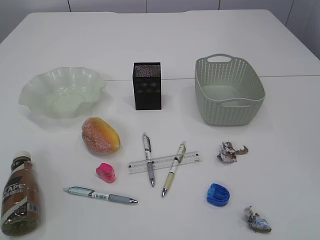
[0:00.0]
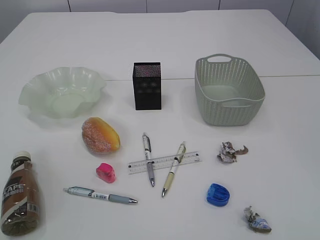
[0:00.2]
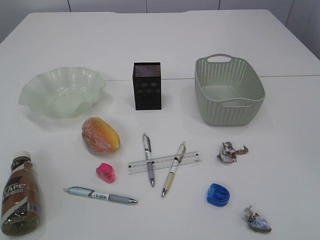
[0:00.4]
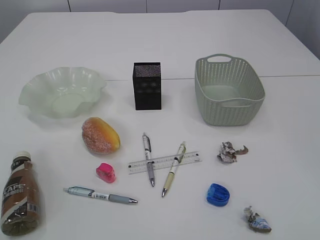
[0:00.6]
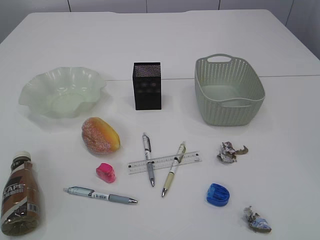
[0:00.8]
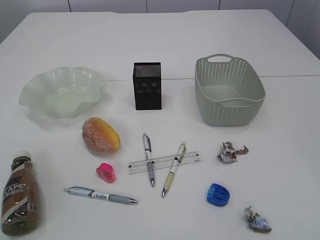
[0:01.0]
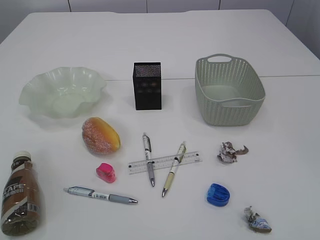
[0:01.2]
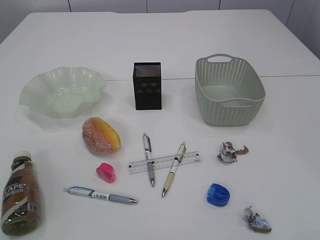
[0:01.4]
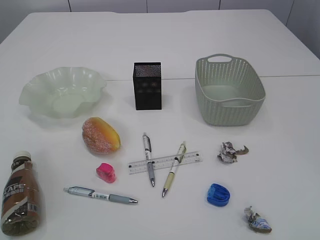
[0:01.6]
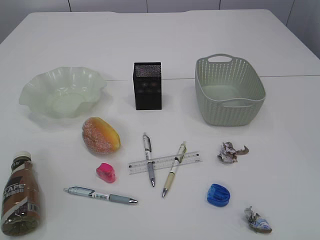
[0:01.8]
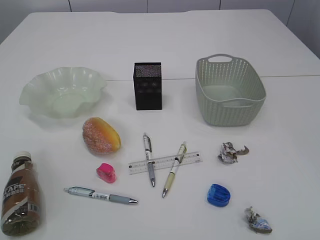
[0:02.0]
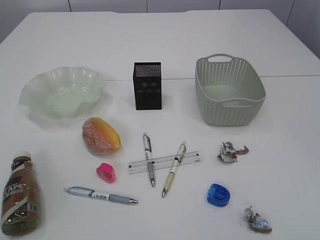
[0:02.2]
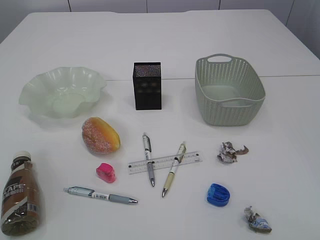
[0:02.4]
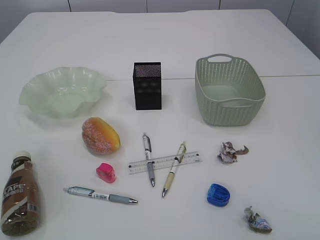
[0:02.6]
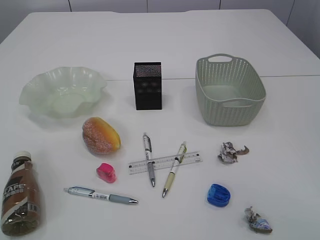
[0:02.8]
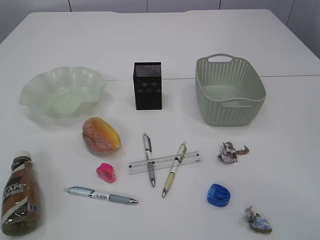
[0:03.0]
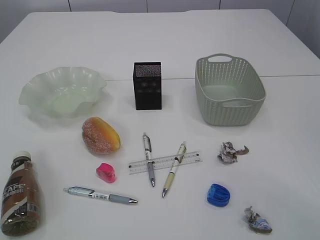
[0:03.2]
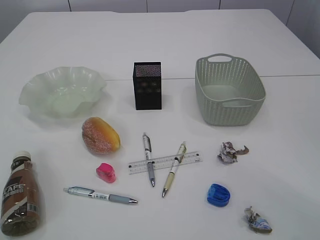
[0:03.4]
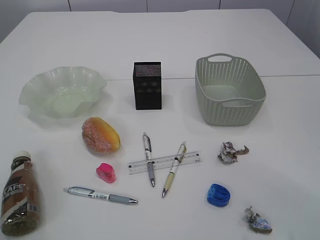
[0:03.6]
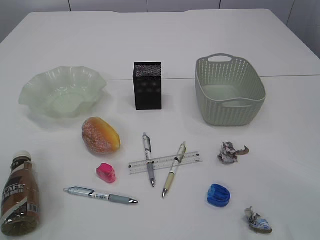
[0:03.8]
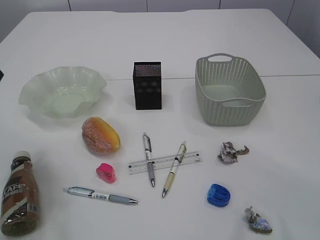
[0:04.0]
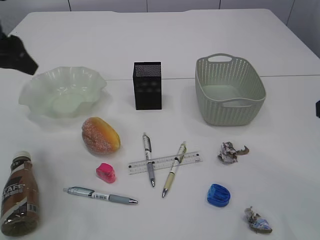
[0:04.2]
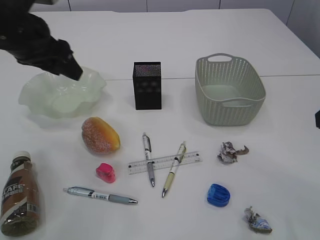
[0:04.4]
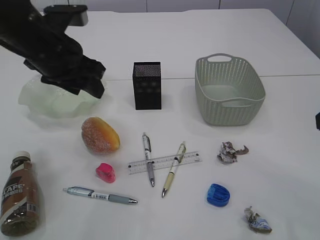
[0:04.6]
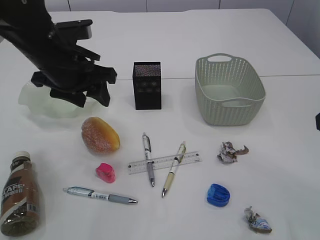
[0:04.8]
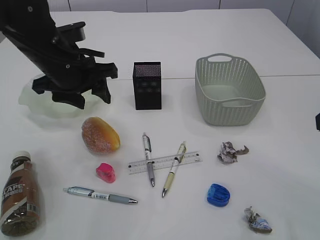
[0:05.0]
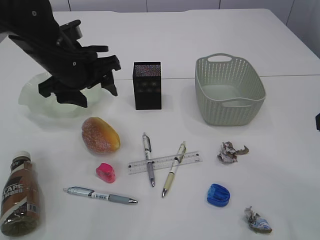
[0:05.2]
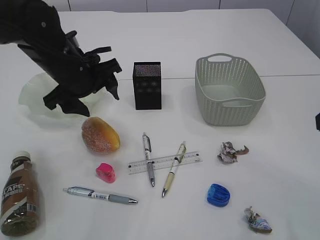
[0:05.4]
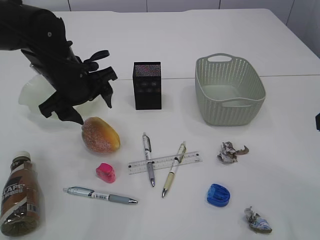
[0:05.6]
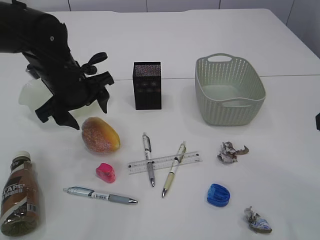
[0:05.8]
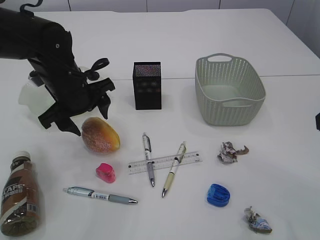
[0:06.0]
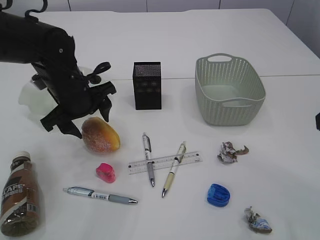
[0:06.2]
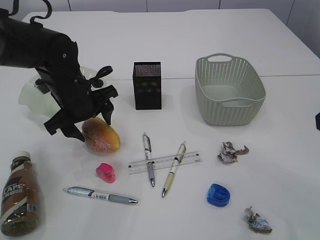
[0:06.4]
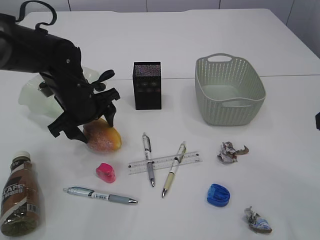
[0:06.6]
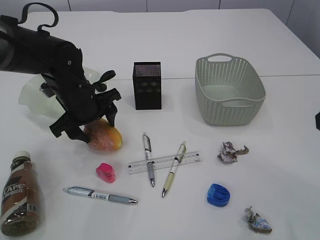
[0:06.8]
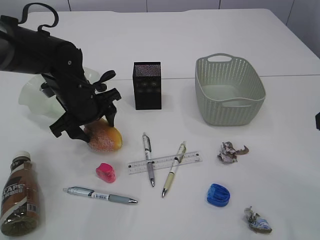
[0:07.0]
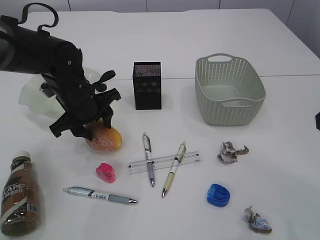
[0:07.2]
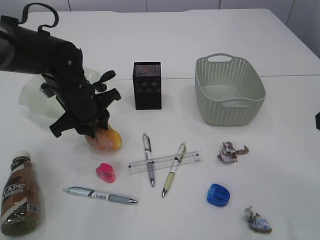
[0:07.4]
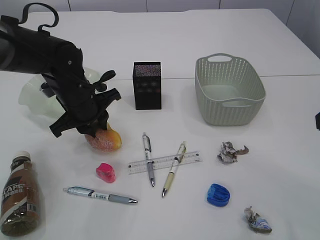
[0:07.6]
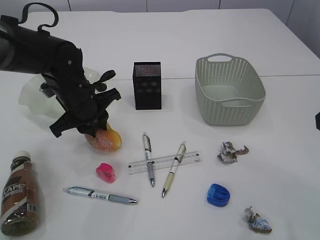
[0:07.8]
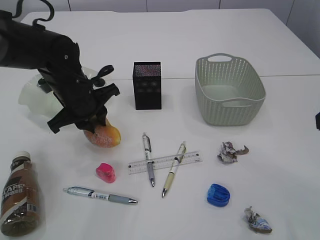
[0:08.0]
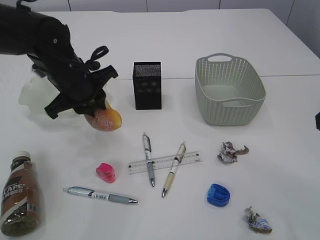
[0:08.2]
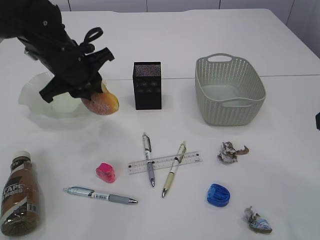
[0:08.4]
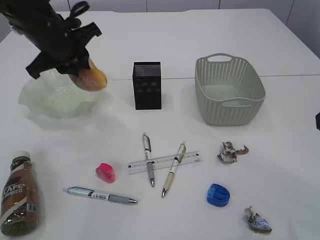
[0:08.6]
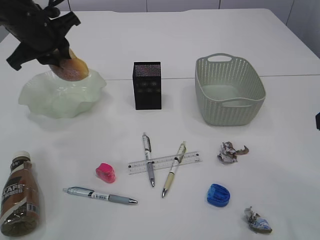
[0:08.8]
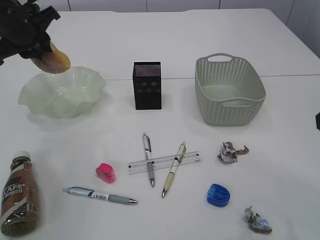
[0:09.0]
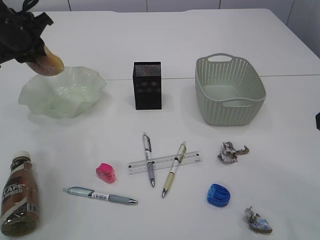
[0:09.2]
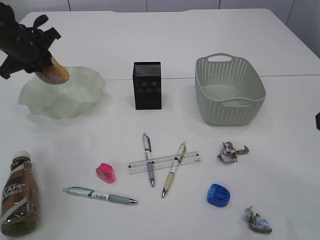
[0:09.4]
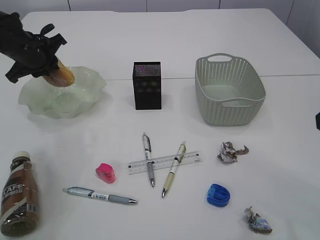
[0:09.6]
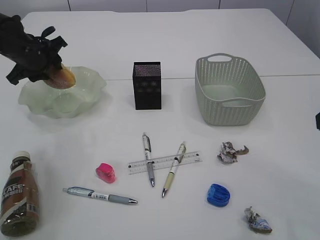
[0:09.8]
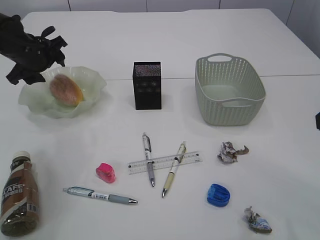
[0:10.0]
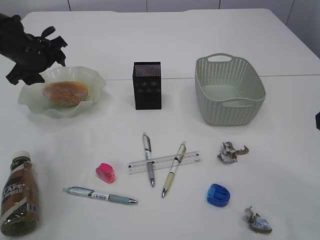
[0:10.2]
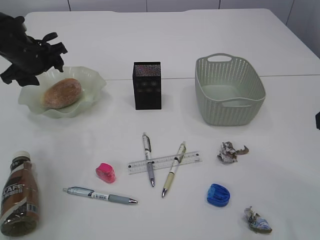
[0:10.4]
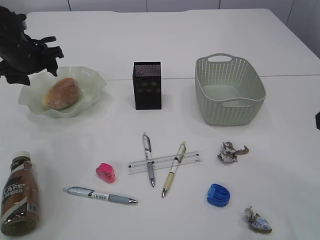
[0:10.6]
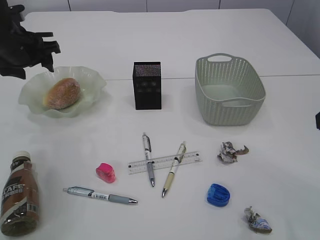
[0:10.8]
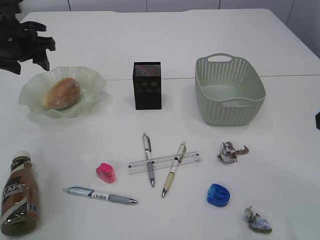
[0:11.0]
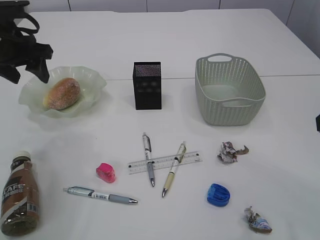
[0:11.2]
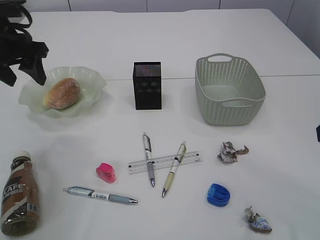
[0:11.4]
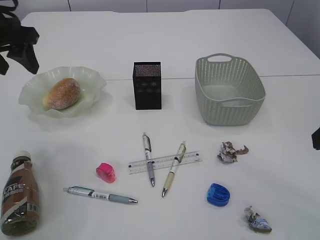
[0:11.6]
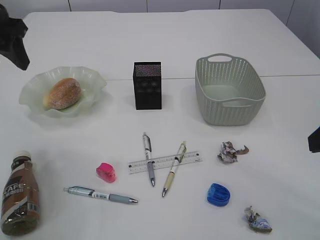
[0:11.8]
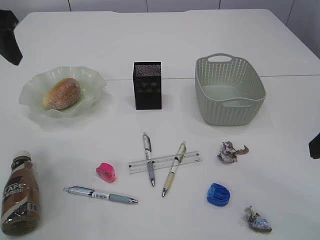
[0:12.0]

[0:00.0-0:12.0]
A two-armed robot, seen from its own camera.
Step, 0:08.6 to 0:10.6: place the bread in the plate.
0:03.0 to 0:04.4: The left gripper heads forward, covering some 30 cm.
0:04.4 to 0:06.0: The left gripper moves downward, about 10 cm.
0:06.0 to 0:07.6: The left gripper closes up.
0:07.6 to 0:09.0: The left gripper goes about 15 cm upward, to the left and forward.
0:09.0 to 0:10.4: The left gripper is displaced downward by roughly 10 cm, and opens its fingers.
0:10.4 to 0:12.0: The left gripper is displaced upward and backward by roughly 20 cm.

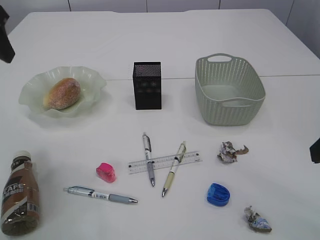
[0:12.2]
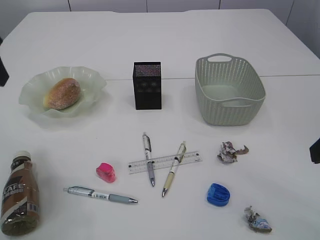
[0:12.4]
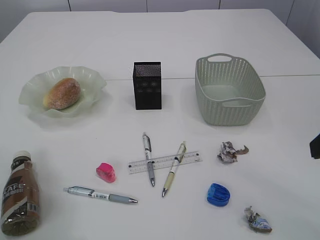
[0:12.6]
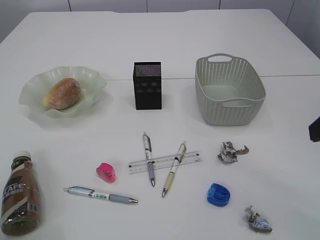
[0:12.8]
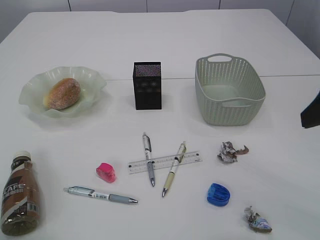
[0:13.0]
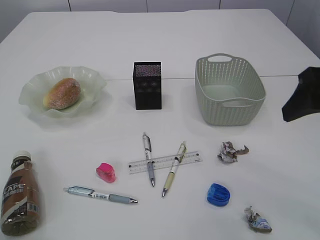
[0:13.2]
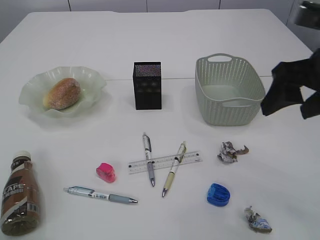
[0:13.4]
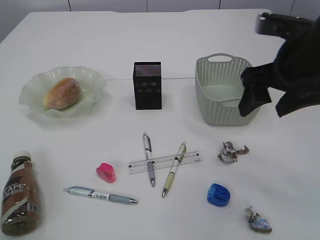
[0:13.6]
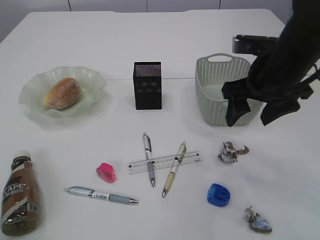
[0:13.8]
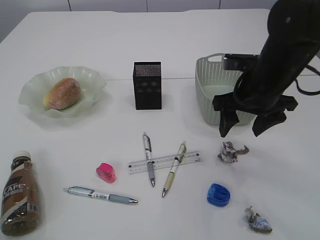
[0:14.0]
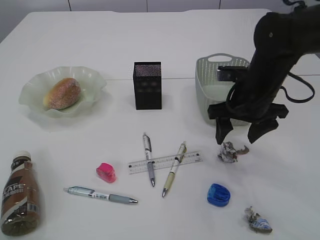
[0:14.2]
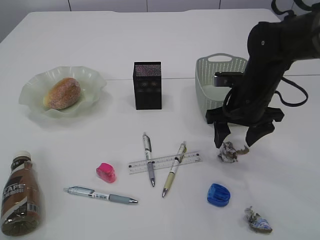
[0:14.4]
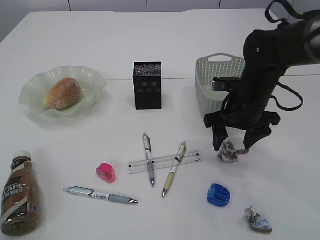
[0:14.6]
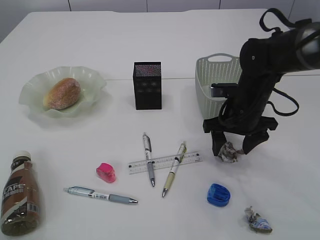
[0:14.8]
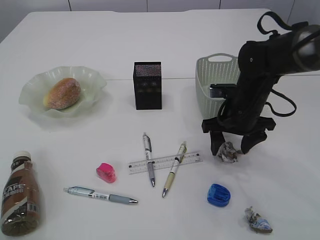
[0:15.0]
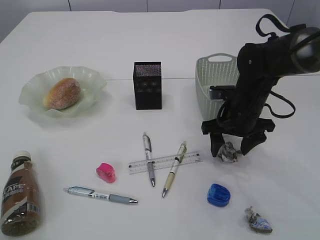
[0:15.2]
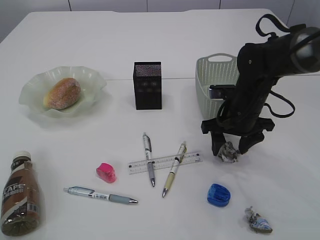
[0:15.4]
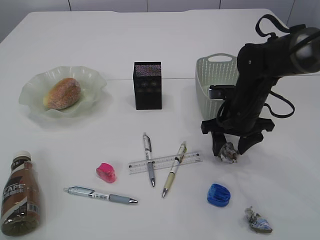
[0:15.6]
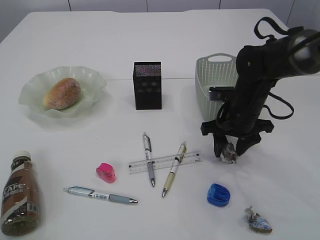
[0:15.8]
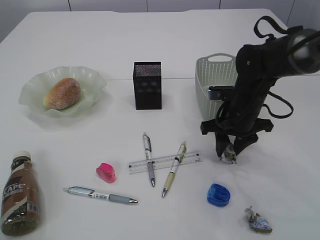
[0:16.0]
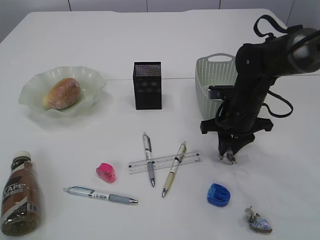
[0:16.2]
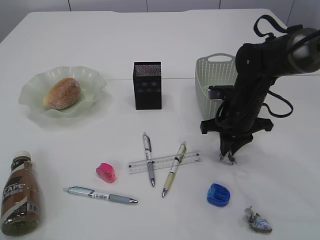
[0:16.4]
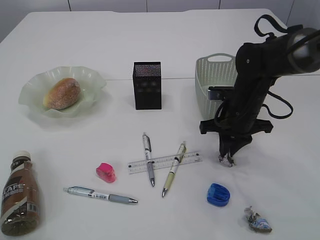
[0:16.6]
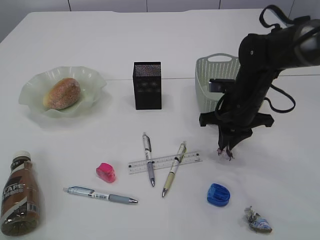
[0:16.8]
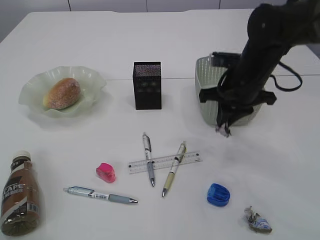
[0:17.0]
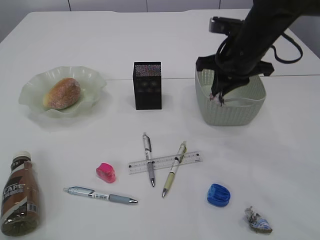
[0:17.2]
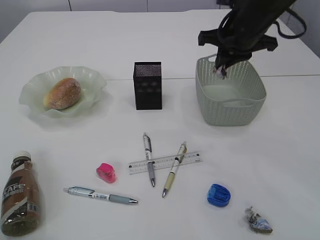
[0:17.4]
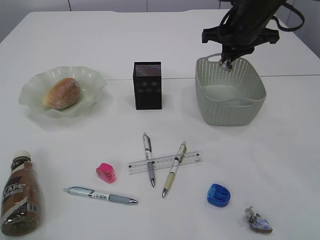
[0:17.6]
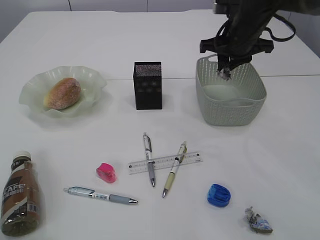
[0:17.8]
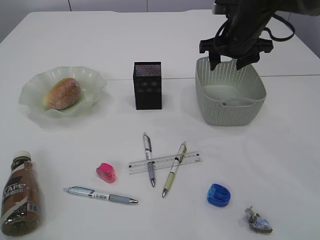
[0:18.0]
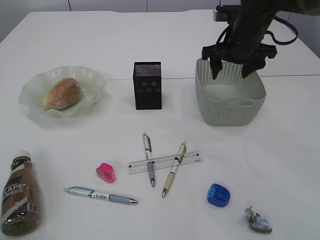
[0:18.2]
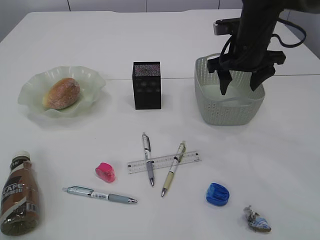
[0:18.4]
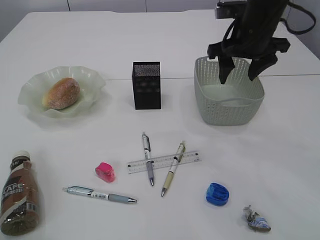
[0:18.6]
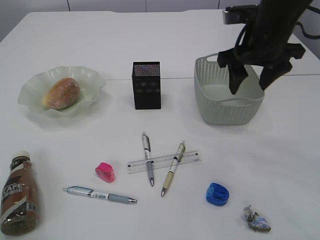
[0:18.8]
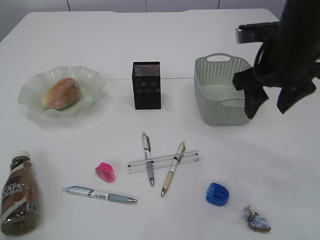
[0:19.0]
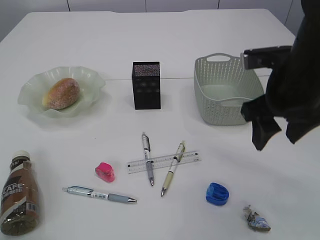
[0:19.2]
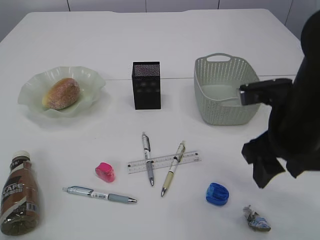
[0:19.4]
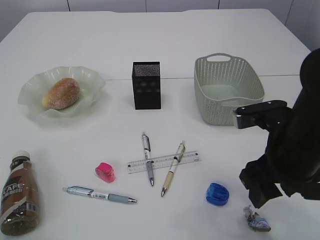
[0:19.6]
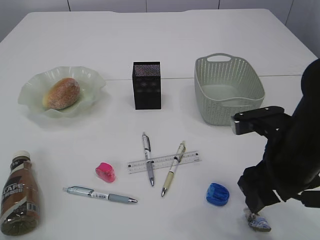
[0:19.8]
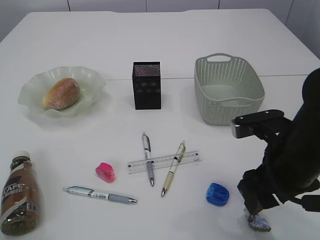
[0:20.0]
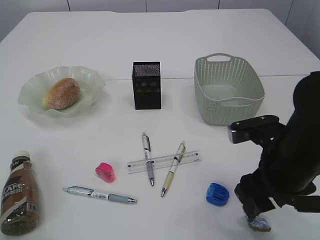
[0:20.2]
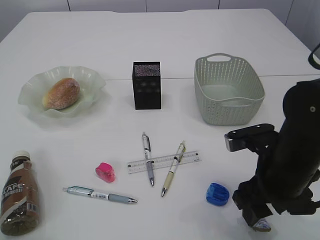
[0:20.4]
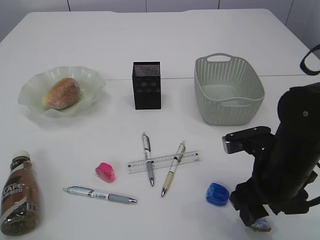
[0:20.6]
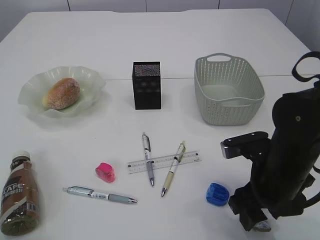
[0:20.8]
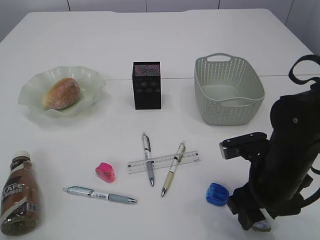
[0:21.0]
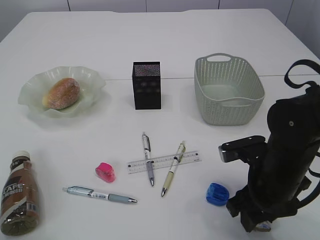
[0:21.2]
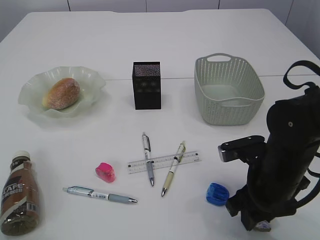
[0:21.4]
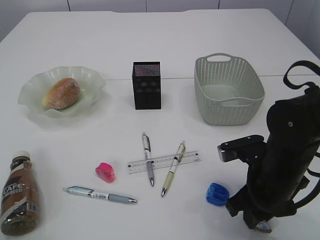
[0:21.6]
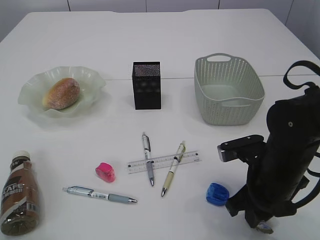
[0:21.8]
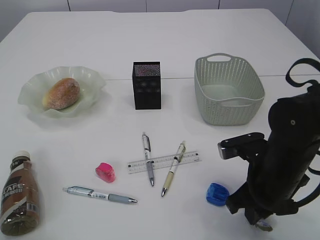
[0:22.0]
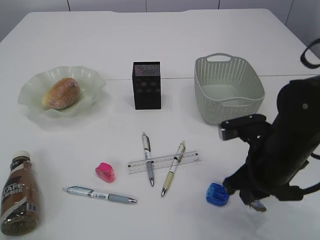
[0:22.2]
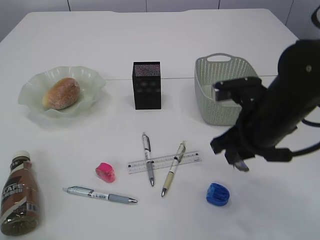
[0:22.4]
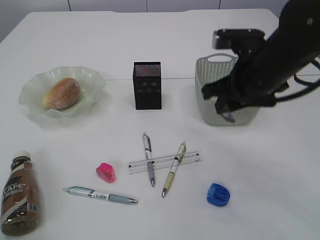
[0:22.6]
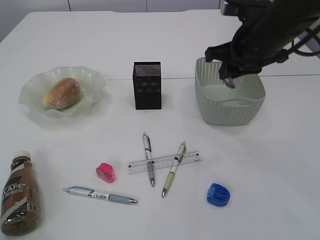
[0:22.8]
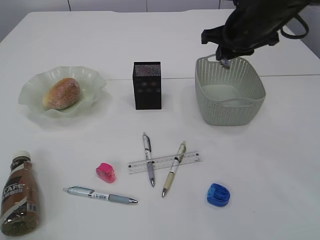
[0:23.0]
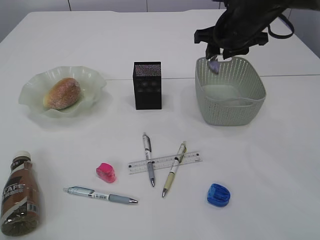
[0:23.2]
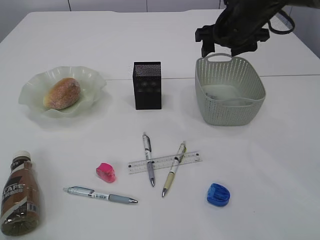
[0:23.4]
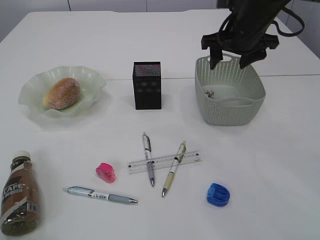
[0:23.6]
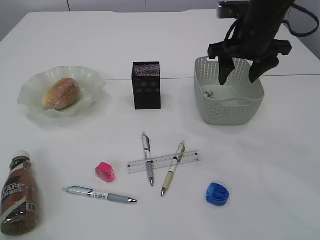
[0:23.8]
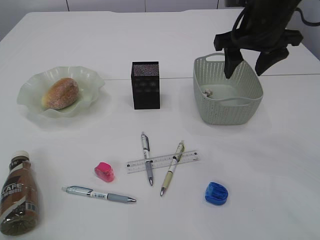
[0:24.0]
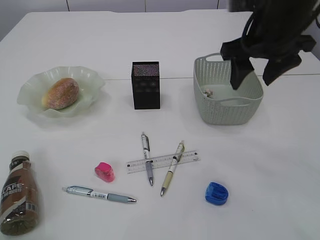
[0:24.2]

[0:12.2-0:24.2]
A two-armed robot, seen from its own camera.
Step, 0:12.2 to 0:16.8: Pick up the waste paper.
Step, 0:17.0 to 0:18.4: Place the waste paper in the basket.
Step, 0:18.6 to 0:22.2: Pick up the waste paper.
Step, 0:22.4 to 0:23.4: Place the waste paper in the basket.
0:12.2 to 0:13.8: The left gripper heads backward, covering roughly 15 cm. The right gripper is displaced forward and to the left by about 15 cm.
0:13.8 to 0:15.2: The right gripper travels downward by some 10 cm.
0:15.2 to 0:16.6: The right gripper closes up.
0:16.6 to 0:18.2: The right gripper shifts some 15 cm upward and forward, and opens up.
0:18.2 to 0:19.8: The right gripper goes about 20 cm backward.
0:19.8 to 0:21.2: The right gripper heads downward, covering roughly 5 cm.
0:21.2 to 0:22.6: The right gripper travels upward and forward by approximately 15 cm, and closes up.
0:22.6 to 0:24.2: The right gripper moves upward, roughly 5 cm, moves some 15 cm forward and comes back, and opens its fingers.
